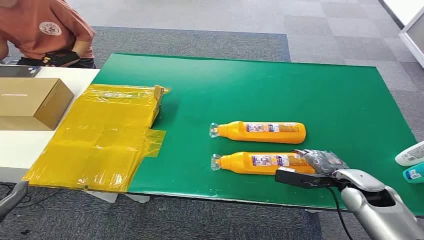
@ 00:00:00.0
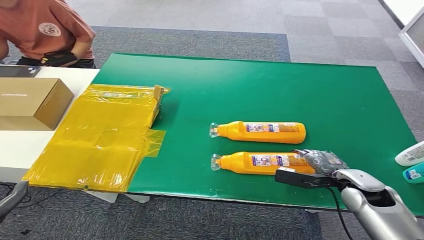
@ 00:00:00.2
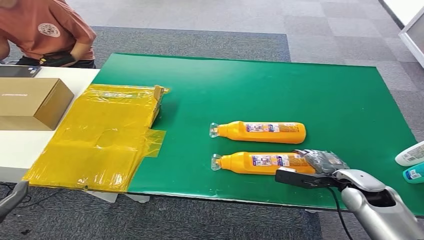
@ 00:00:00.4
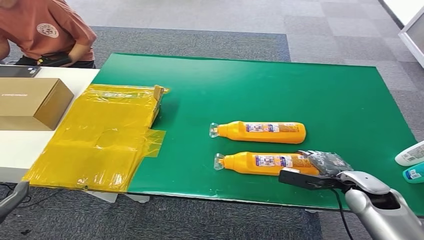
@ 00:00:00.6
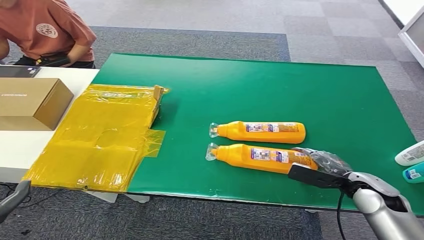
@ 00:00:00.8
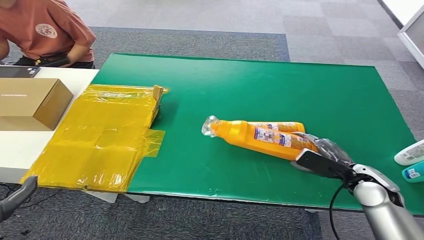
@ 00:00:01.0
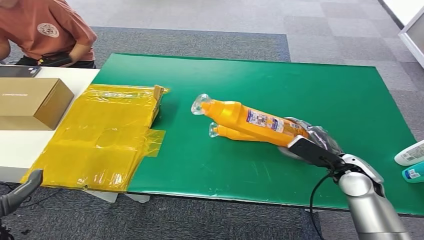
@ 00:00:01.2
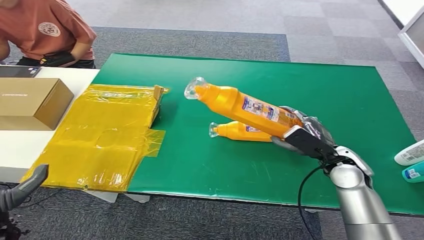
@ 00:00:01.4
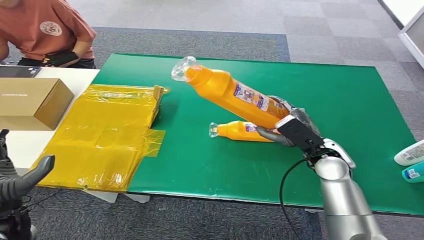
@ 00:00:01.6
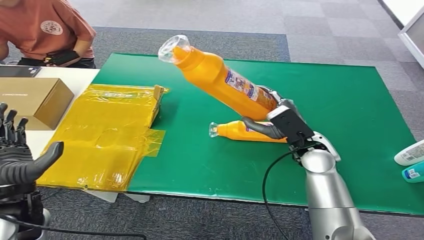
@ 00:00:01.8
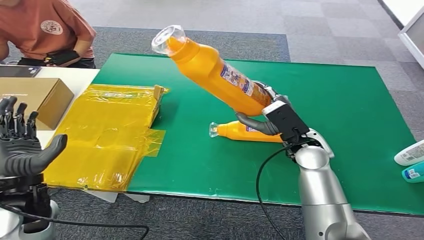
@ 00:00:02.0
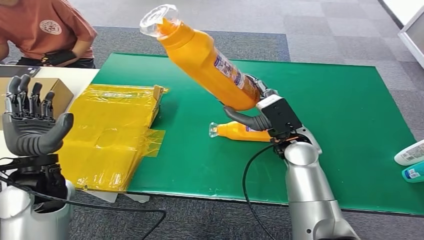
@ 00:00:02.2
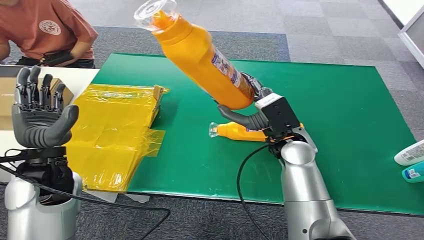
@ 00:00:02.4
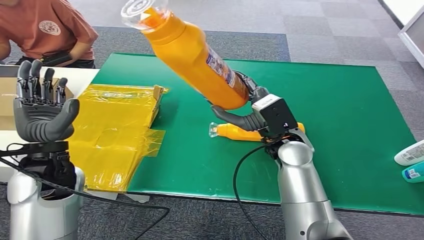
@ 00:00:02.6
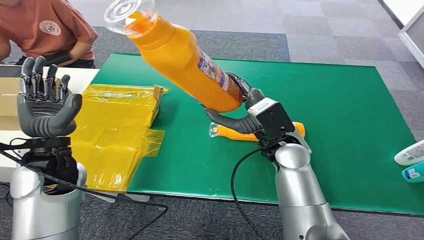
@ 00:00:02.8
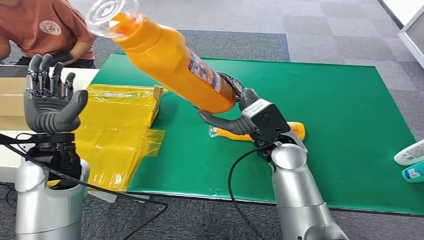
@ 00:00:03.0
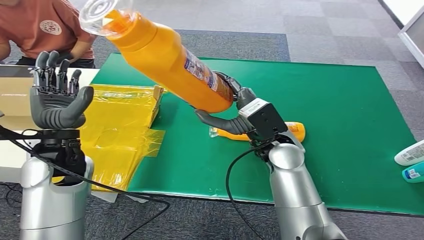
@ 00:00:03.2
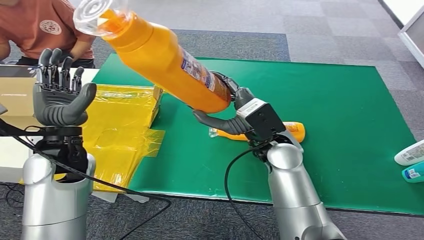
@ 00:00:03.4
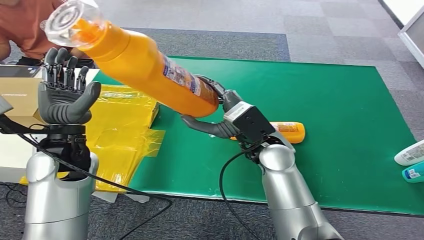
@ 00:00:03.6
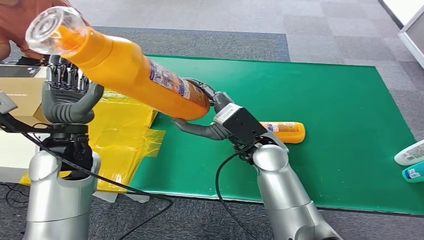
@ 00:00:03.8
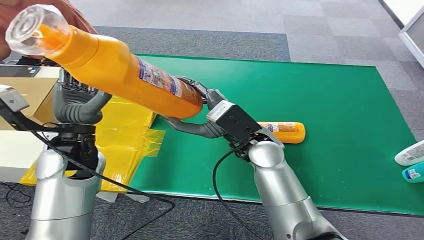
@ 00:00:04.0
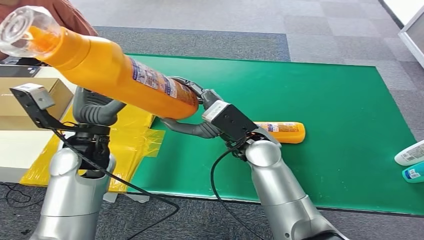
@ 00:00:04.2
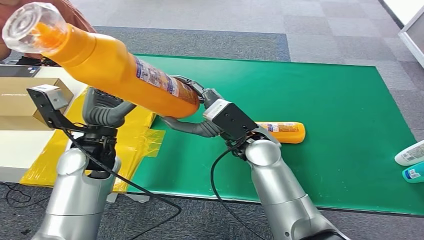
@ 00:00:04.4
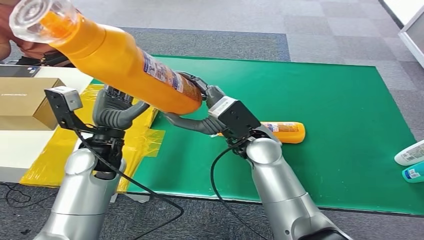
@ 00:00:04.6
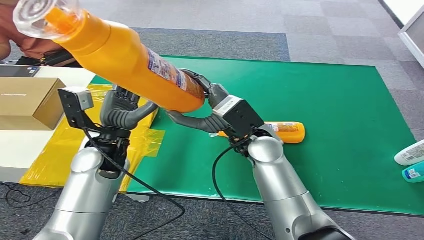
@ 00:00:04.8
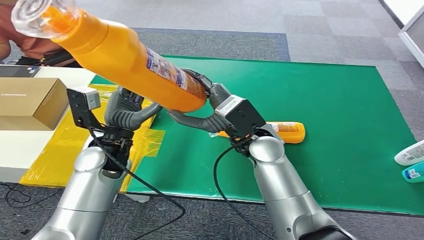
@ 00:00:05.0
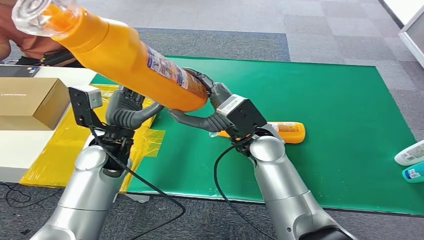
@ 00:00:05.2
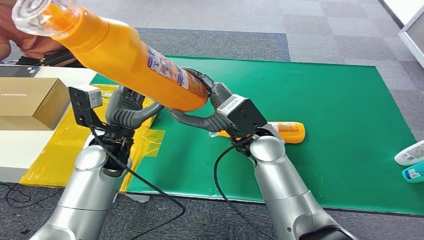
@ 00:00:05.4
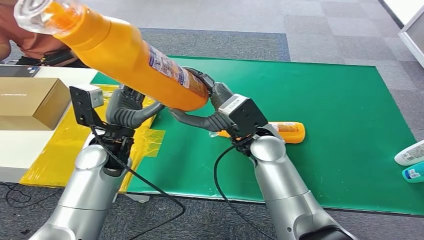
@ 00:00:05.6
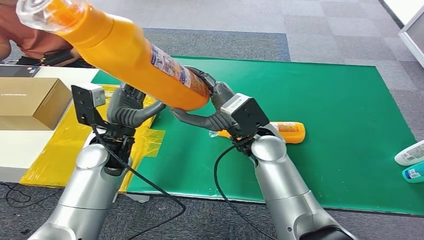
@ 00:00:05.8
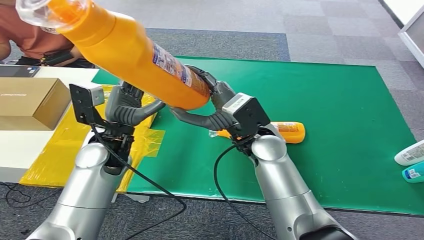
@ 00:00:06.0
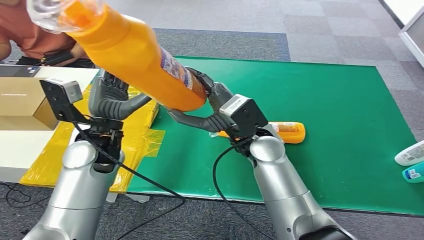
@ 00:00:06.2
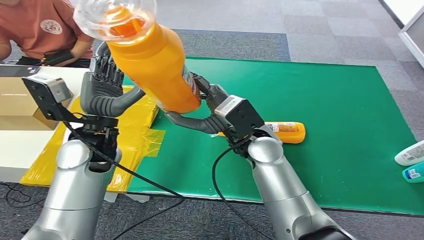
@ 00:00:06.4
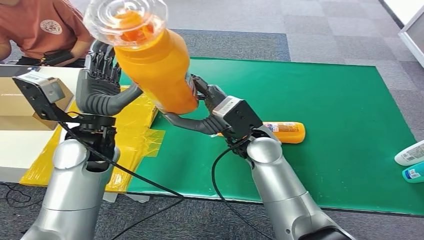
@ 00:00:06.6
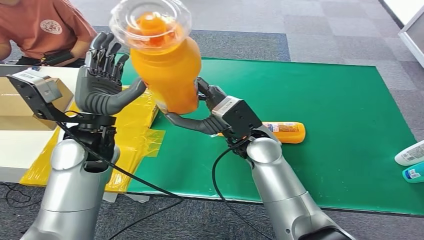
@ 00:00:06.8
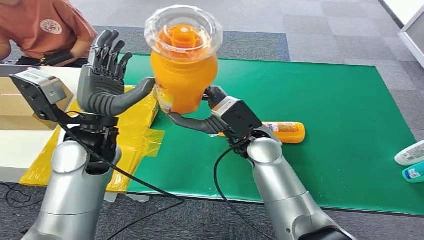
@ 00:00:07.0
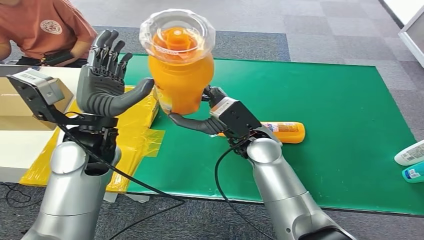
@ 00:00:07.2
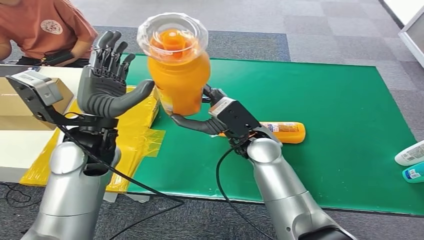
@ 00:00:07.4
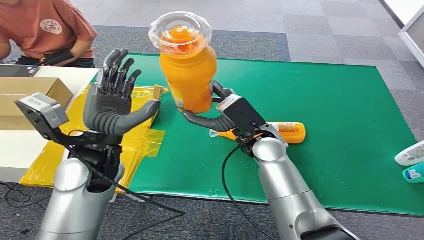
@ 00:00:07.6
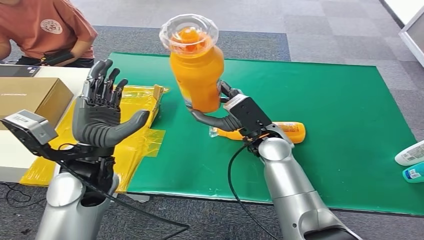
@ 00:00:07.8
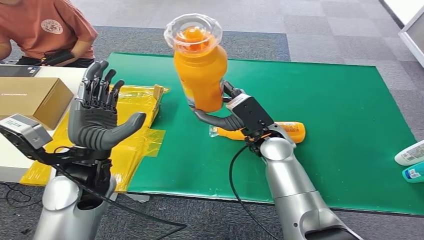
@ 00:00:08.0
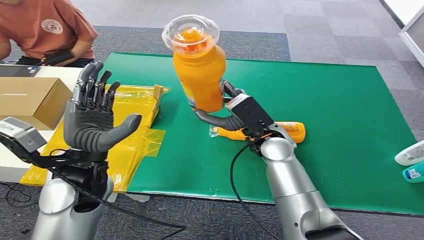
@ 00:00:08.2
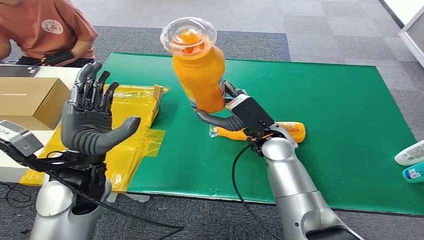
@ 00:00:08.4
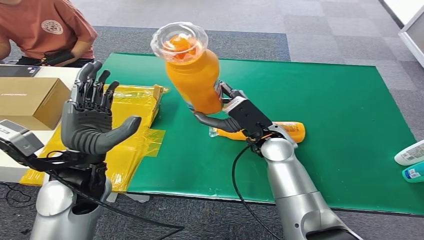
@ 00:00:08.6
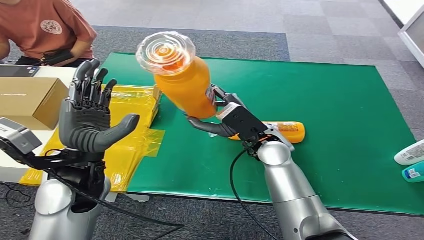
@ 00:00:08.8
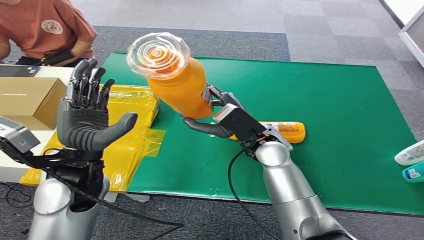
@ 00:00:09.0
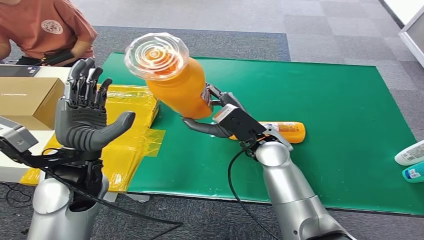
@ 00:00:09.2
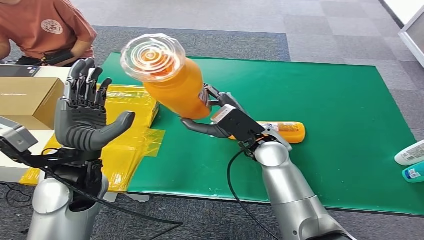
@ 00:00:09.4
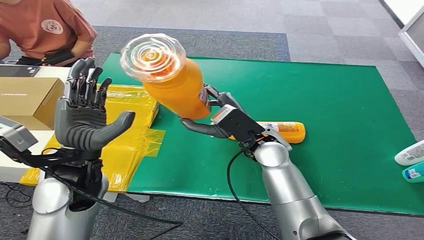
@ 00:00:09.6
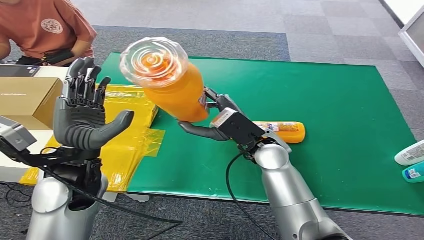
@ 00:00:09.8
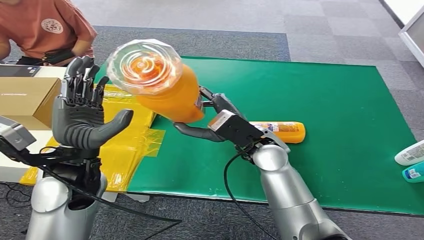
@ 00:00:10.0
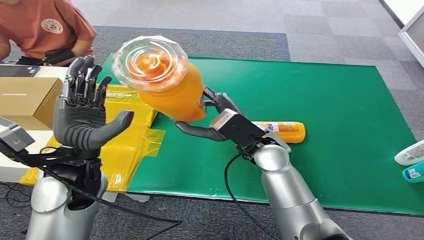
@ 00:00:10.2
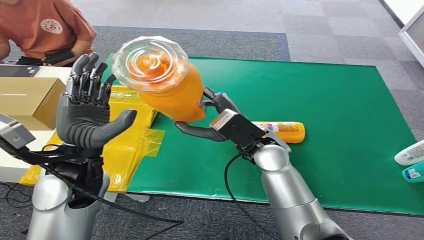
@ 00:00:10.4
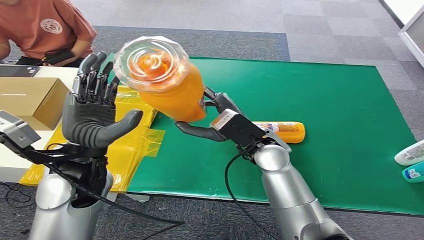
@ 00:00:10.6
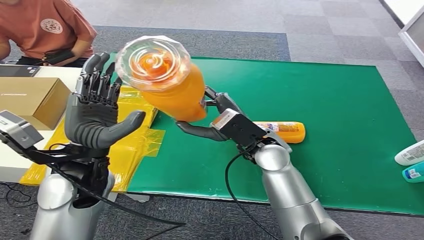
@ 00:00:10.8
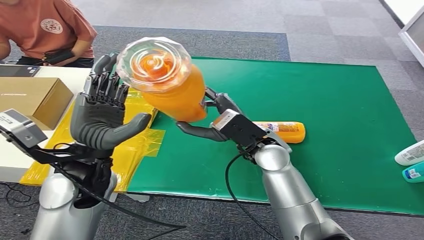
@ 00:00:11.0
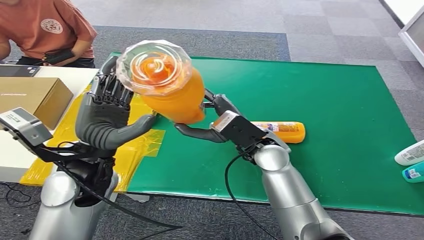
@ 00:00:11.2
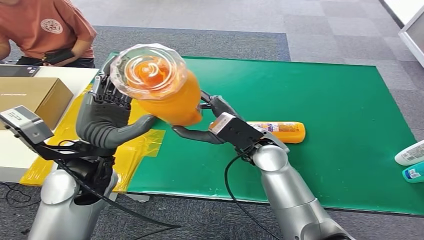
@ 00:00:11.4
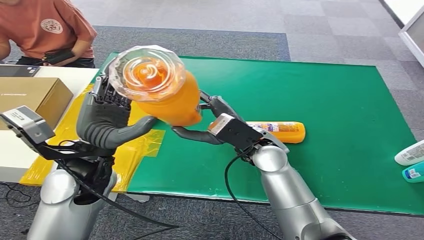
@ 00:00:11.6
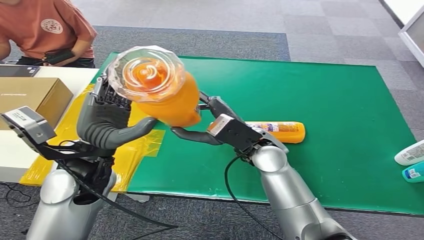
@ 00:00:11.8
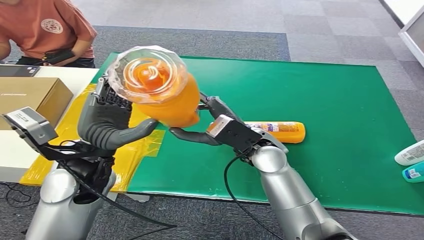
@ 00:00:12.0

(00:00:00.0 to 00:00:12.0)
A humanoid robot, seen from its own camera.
Step, 00:00:00.0 - 00:00:01.2: Pick up the bottle from the table.
00:00:09.0 - 00:00:12.0: The hands move only a little.

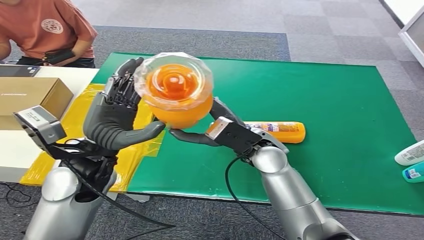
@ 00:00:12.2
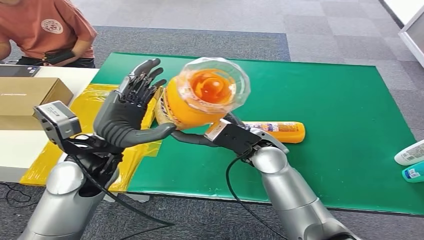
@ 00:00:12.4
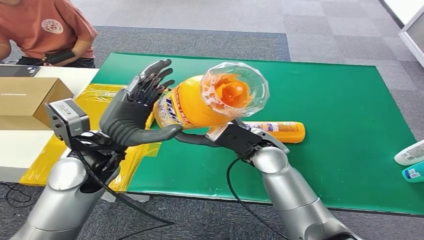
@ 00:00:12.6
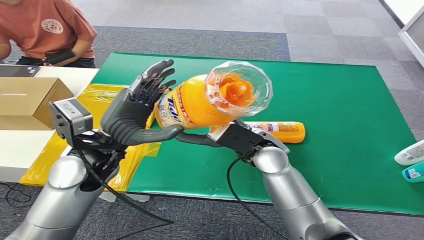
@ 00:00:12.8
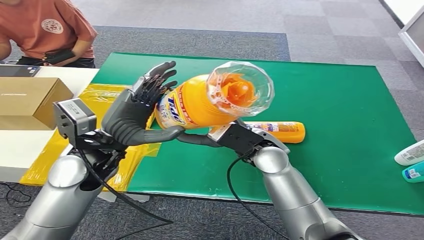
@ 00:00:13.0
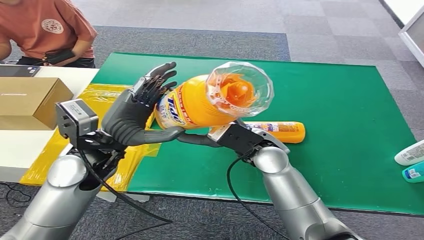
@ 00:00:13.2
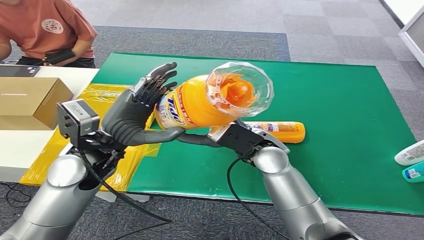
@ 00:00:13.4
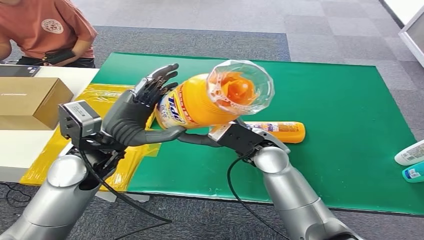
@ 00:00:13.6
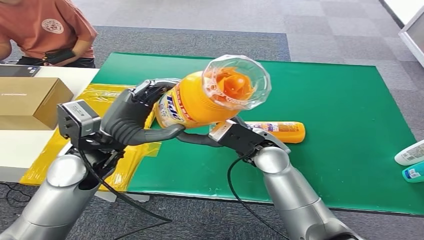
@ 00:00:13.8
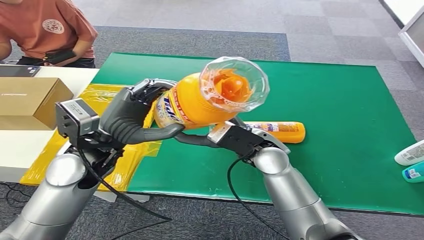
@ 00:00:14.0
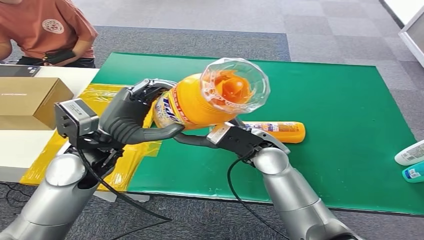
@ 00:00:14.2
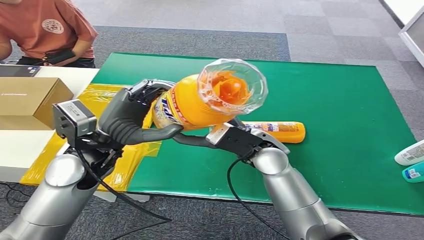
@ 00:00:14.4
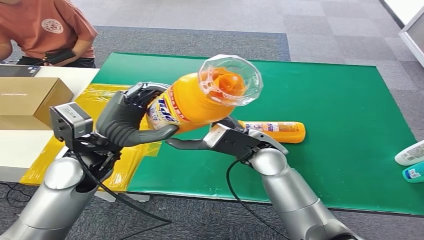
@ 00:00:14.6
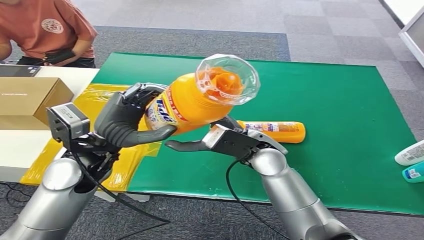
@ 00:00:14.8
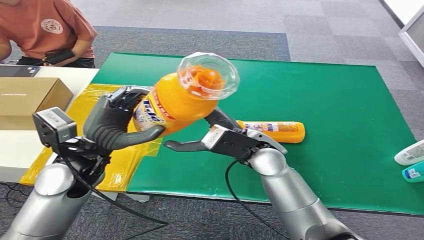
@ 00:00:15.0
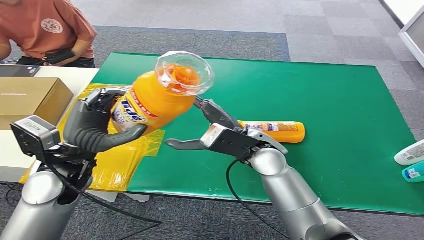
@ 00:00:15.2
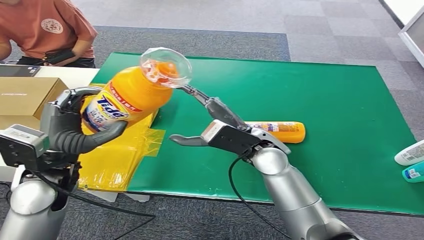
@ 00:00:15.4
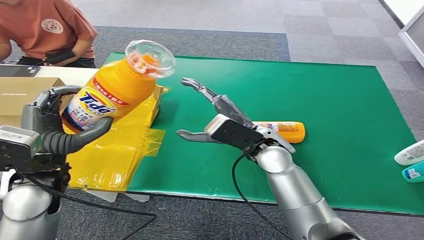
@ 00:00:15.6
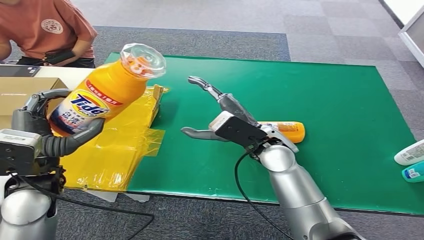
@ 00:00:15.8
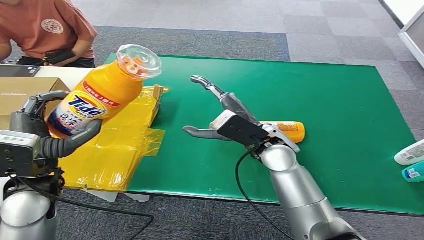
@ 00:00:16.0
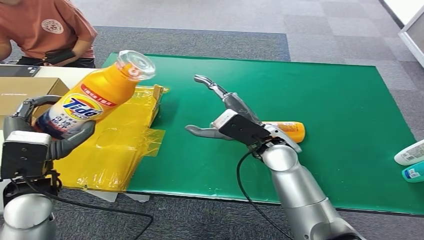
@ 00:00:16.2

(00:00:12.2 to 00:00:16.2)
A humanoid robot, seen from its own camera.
Step, 00:00:12.2 - 00:00:16.2: Turn the bottle to the front side.
00:00:12.2 - 00:00:13.6: The hands move only a little.
00:00:13.6 - 00:00:14.8: Neither hand changes place.
